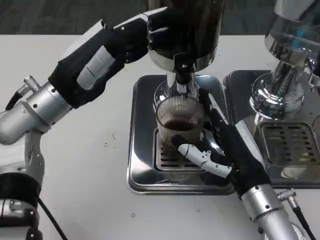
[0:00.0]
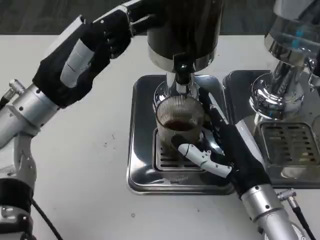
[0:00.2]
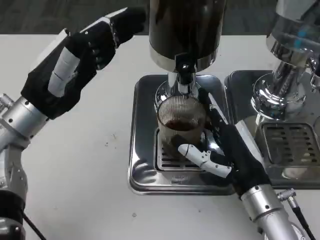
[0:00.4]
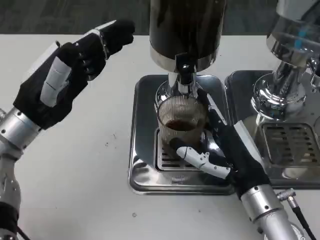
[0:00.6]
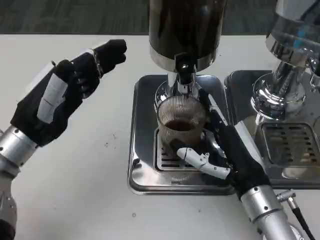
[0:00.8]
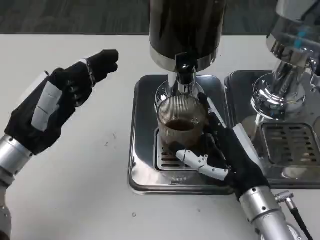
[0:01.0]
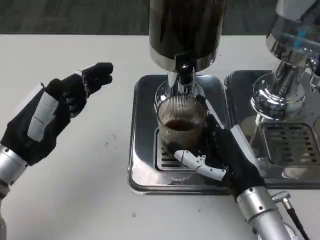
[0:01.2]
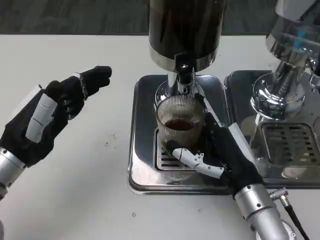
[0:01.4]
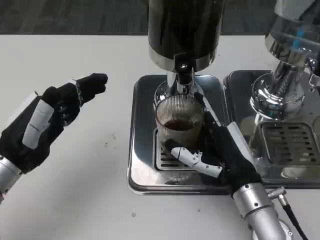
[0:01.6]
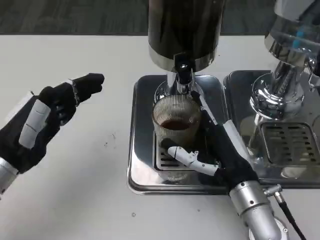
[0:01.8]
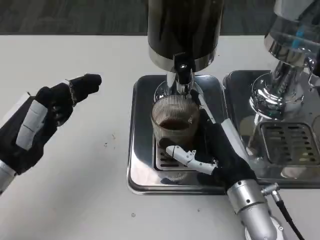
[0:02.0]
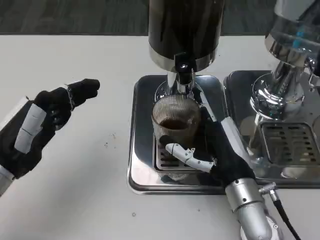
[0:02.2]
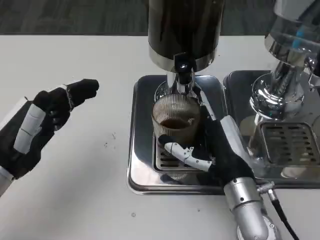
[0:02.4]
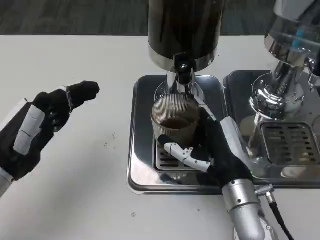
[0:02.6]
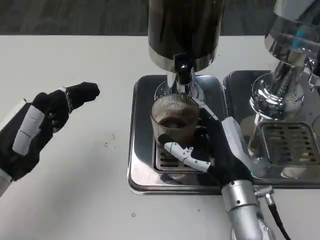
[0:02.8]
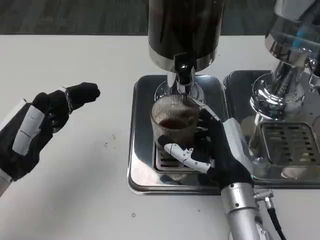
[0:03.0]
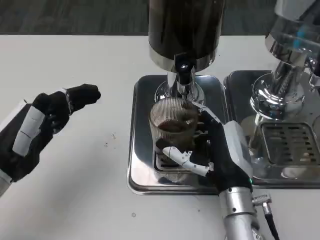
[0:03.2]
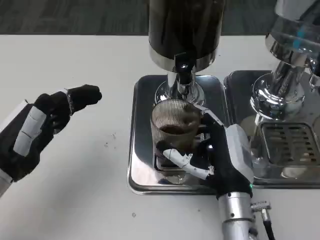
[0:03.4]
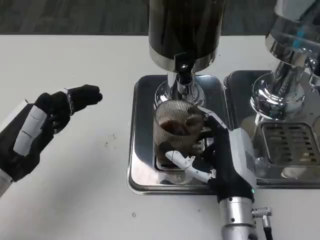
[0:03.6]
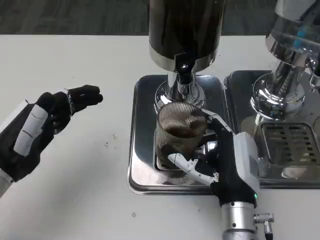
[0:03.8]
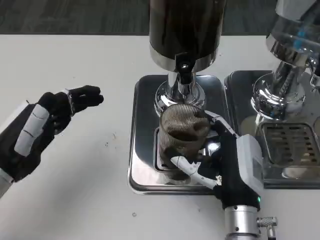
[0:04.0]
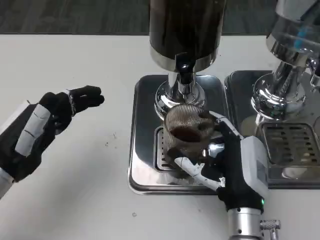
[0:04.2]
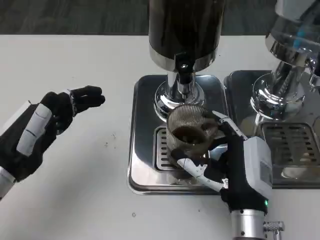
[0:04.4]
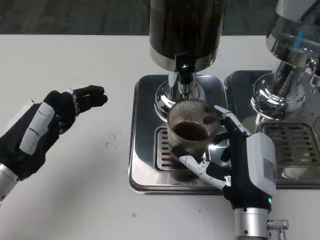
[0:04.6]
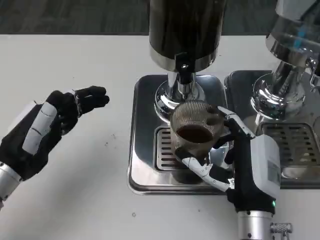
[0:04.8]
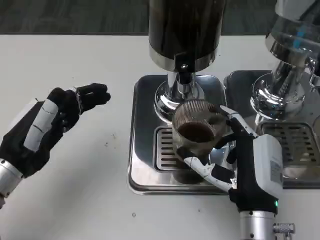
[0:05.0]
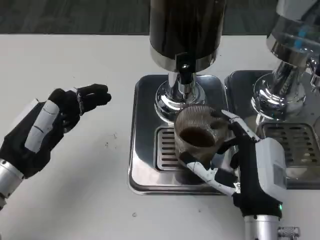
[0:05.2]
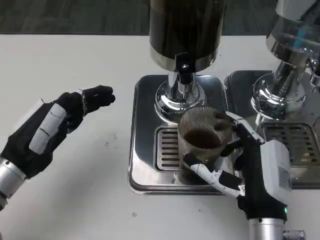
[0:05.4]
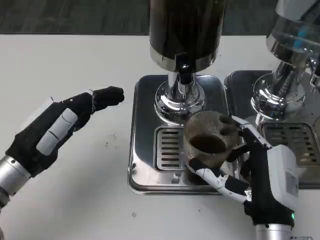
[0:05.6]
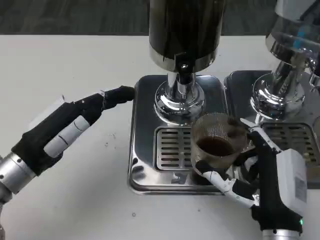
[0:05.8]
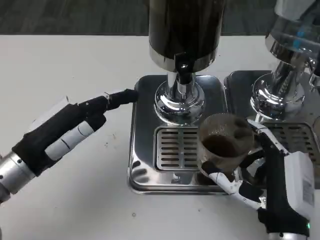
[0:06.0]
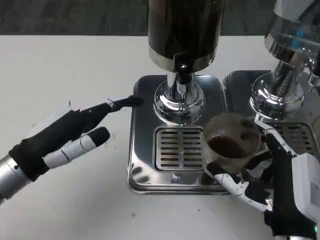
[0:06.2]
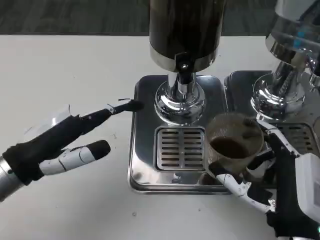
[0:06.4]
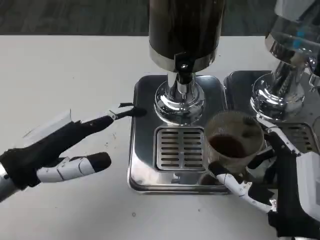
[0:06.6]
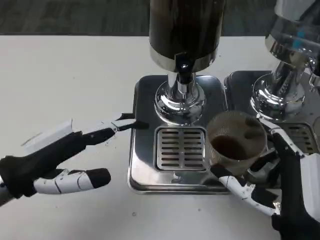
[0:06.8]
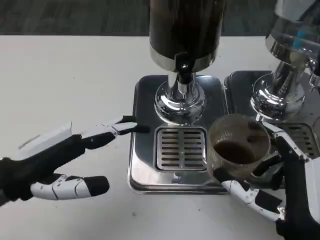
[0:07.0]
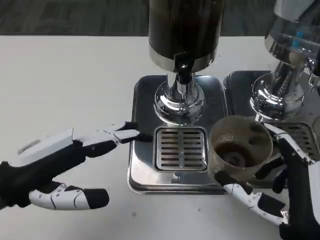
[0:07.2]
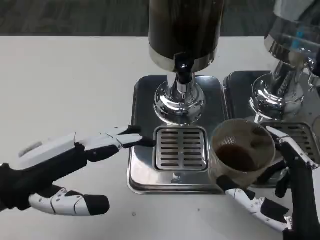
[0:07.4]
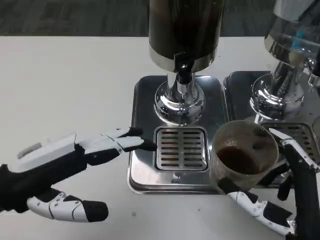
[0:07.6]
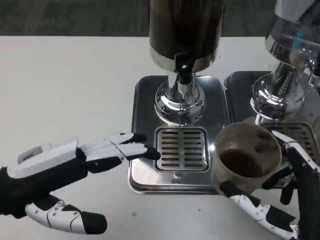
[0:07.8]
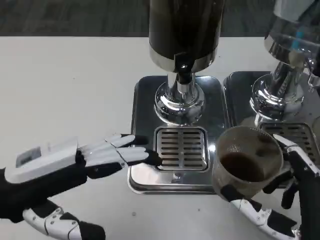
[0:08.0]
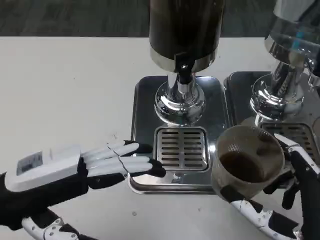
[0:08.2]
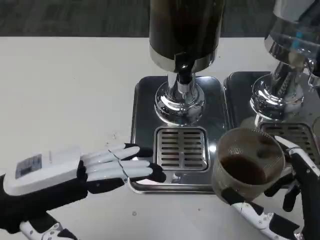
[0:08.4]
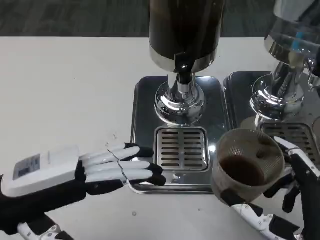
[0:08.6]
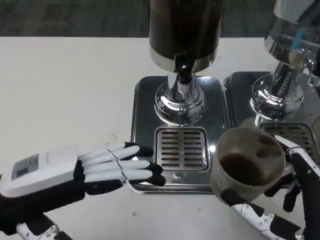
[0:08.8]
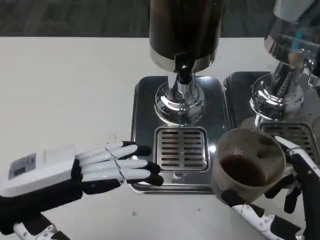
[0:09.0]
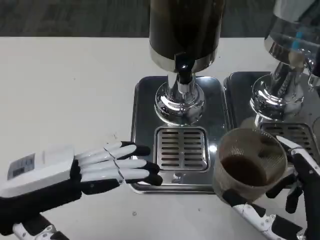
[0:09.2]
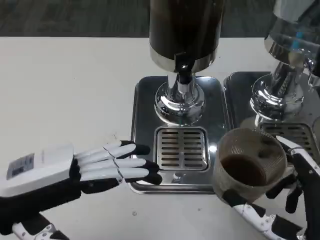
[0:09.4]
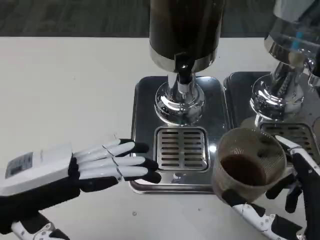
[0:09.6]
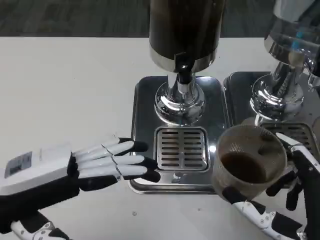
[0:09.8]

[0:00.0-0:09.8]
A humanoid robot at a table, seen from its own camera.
Task of the whole recording: Grasp the cup under the faucet to collect the drink, then remove the cup.
0:00.0 to 0:01.4: The left hand shifts some 10 cm backward, downward and to the left.
0:01.4 to 0:02.8: The hands stay close to where they were, moving slightly.
0:02.8 to 0:04.2: The hands make only small movements.
0:05.6 to 0:07.0: The right hand shifts by roughly 5 cm. The left hand ends up roughly 5 cm from where it was.
0:08.4 to 0:09.8: Both hands stay about where they are.

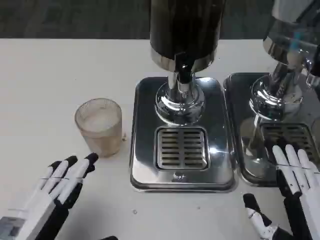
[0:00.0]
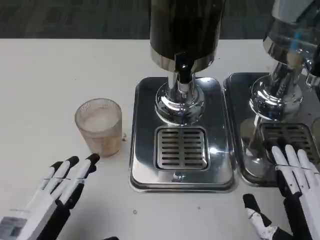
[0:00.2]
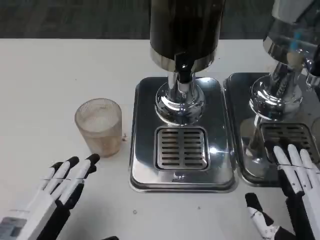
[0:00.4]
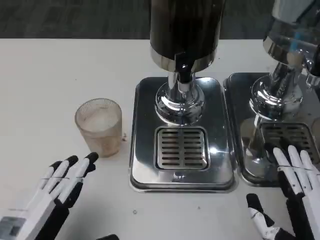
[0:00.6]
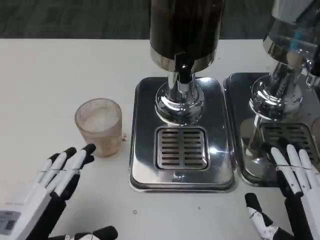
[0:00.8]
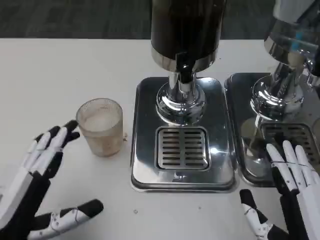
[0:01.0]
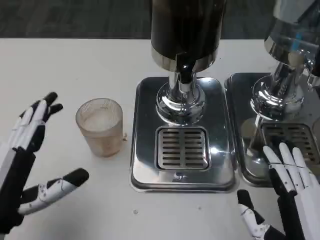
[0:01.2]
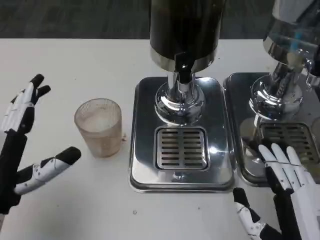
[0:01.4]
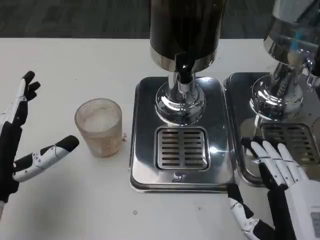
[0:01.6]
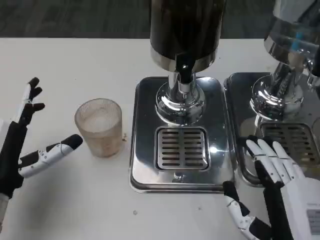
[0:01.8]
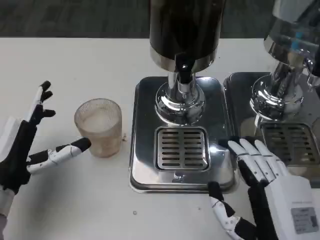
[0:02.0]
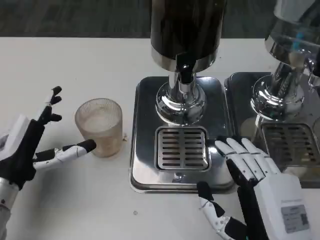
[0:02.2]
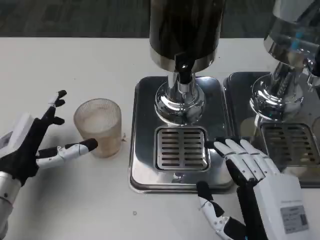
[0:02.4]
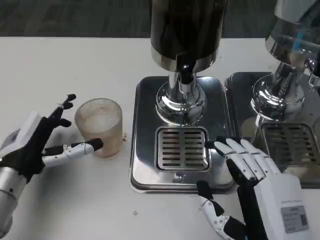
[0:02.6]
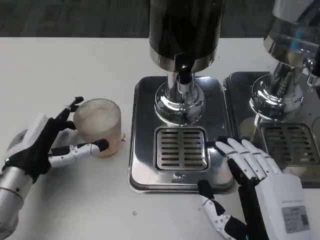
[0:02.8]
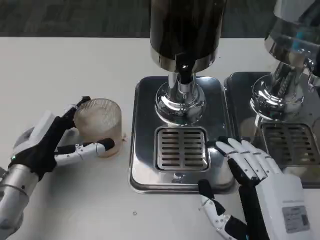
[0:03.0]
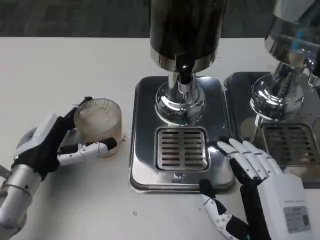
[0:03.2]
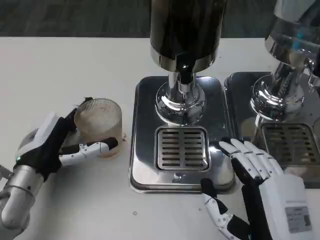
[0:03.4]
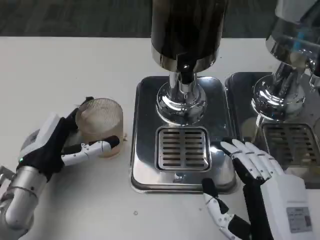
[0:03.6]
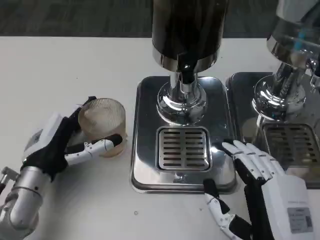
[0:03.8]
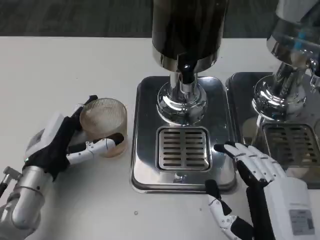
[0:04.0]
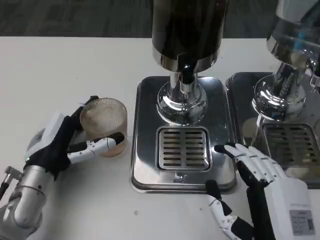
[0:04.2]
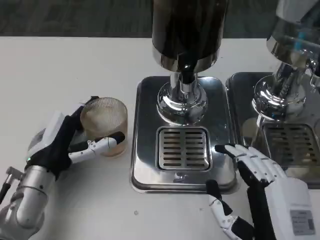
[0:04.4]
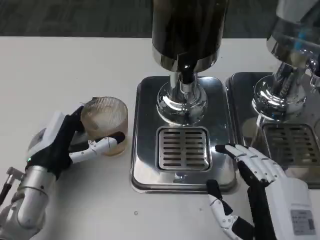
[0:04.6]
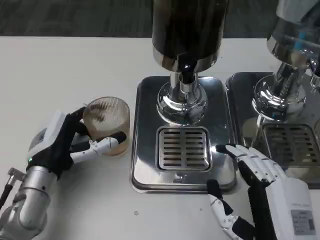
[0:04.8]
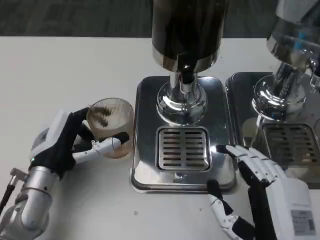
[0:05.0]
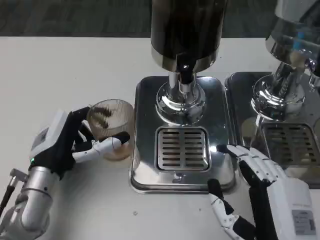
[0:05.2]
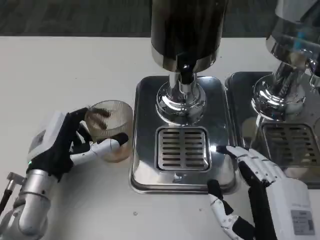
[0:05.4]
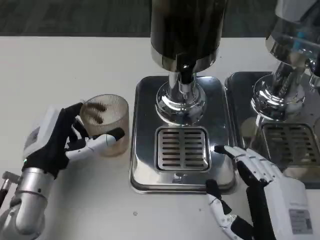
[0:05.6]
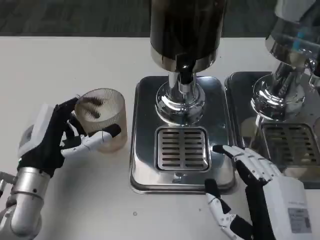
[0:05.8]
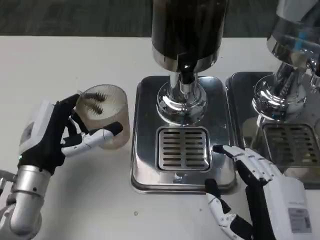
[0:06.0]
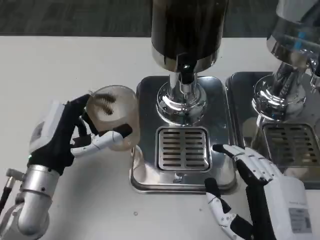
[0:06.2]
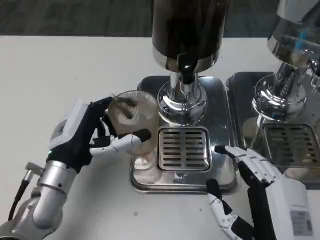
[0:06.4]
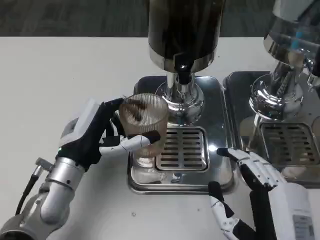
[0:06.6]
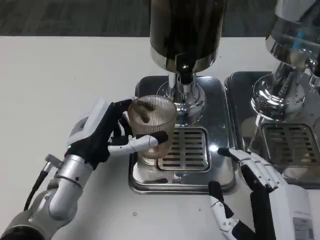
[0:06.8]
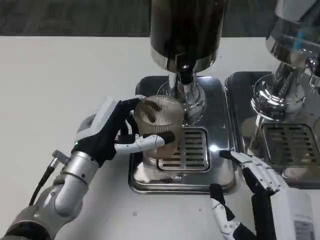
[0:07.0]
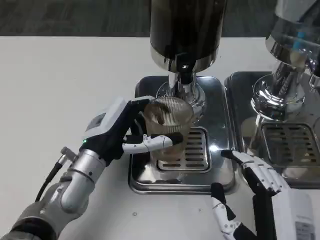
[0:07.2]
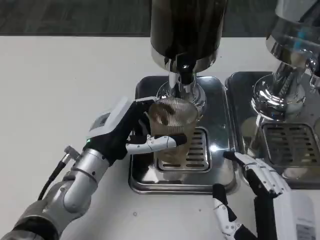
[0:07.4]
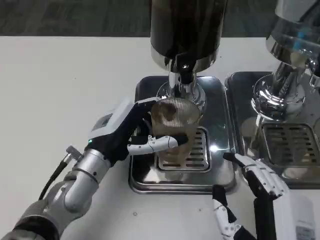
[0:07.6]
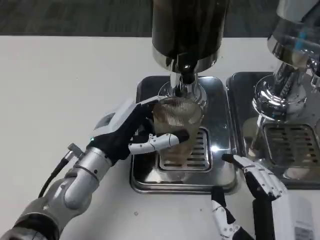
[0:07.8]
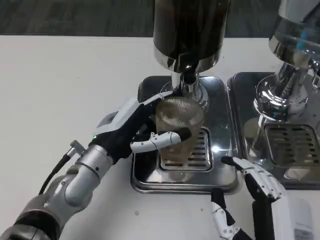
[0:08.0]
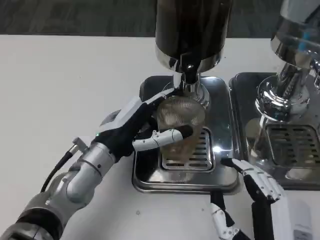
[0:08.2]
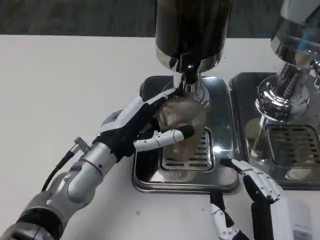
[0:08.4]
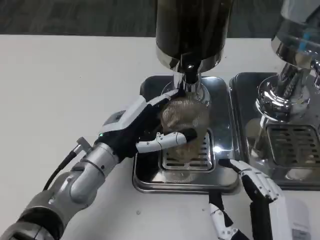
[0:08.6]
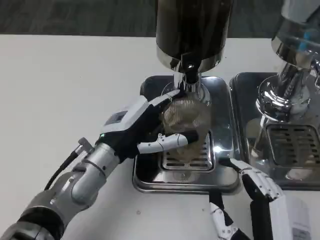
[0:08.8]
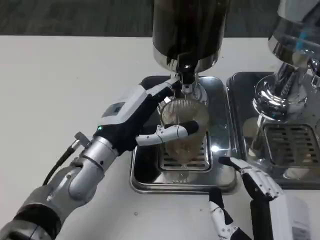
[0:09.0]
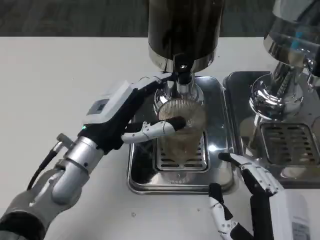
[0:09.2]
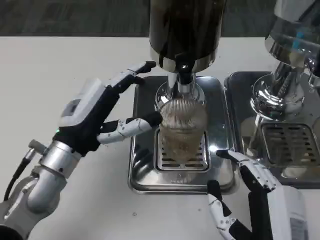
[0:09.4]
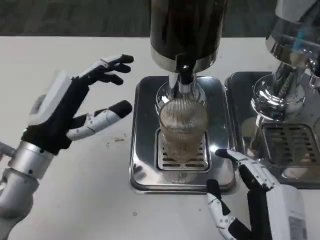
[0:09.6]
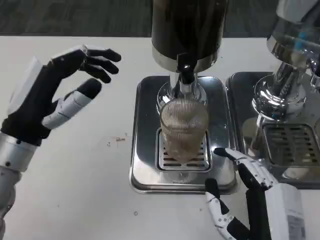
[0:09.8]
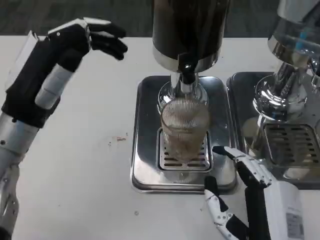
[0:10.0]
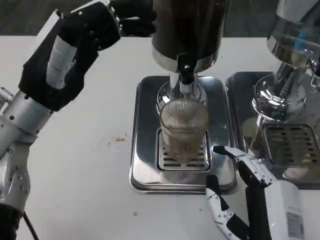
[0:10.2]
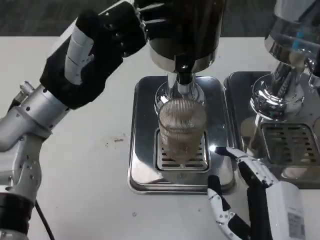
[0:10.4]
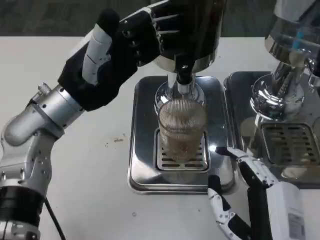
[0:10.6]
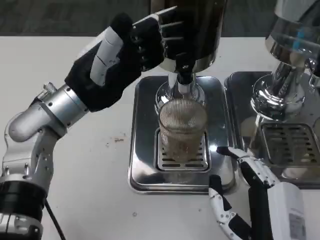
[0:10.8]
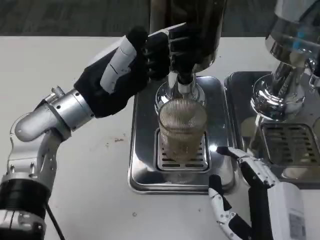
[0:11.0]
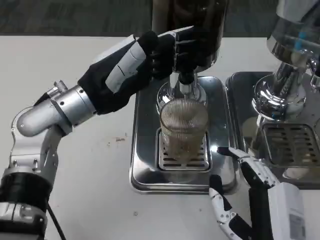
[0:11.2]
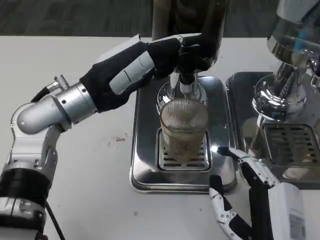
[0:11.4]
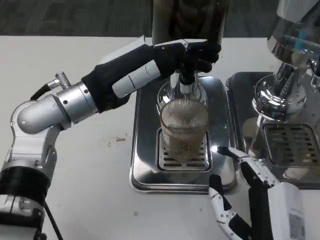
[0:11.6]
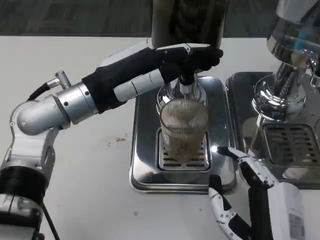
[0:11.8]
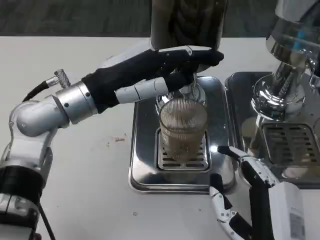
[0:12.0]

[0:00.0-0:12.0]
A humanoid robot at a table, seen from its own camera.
Task of the whole recording: Grasp the cup under the faucet to collect the drink, then remove the cup.
0:00.0 to 0:01.6: The left hand goes roughly 10 cm forward.
0:01.6 to 0:03.0: The left hand goes about 5 cm forward.
0:04.4 to 0:06.0: The hands make only small movements.
0:06.0 to 0:07.6: The left hand travels to the right by about 5 cm.
0:09.0 to 0:10.4: The left hand shifts approximately 10 cm upward and to the left.

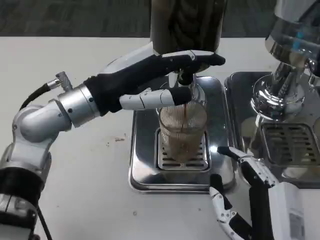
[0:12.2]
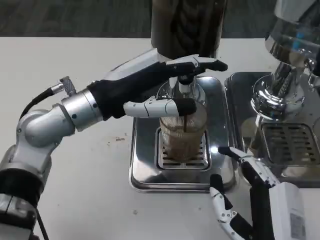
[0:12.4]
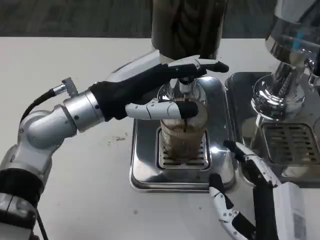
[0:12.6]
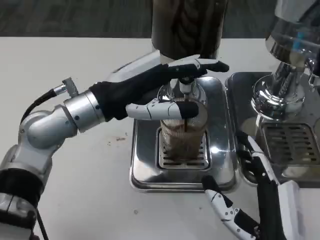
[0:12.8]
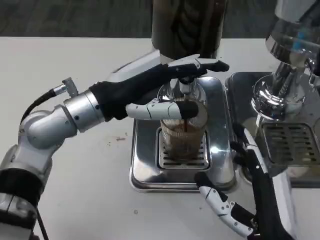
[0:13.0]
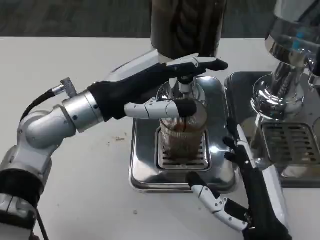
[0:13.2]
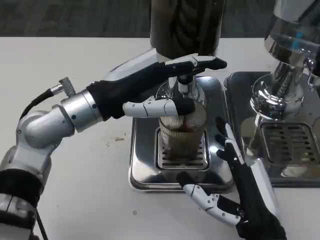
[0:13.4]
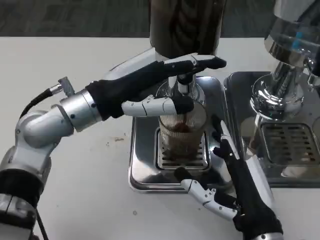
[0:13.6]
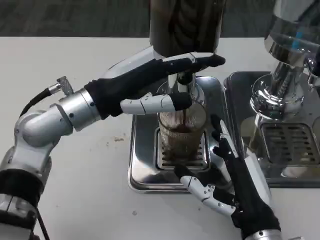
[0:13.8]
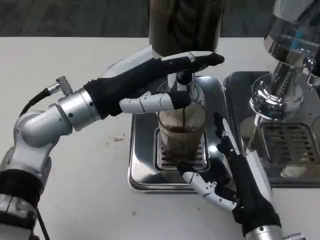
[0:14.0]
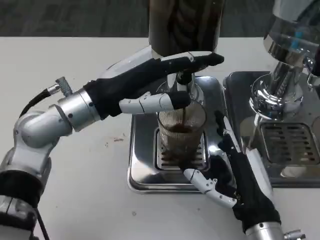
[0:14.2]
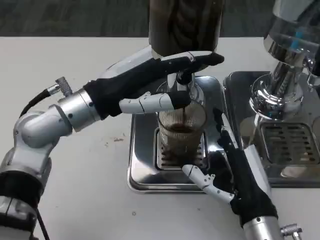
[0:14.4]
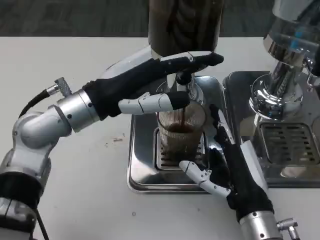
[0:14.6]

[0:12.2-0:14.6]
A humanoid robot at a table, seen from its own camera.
Task of the whole recording: Grasp the cup under the faucet to collect the drink, then remove the cup.
0:13.4 to 0:14.6: The hands move only a little.
